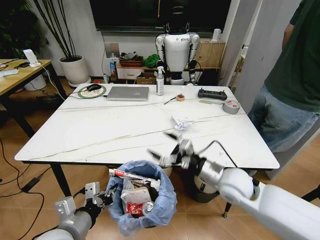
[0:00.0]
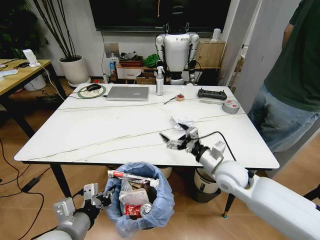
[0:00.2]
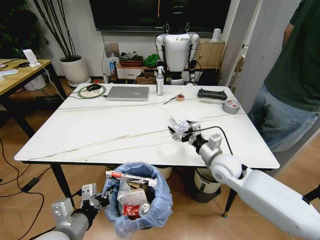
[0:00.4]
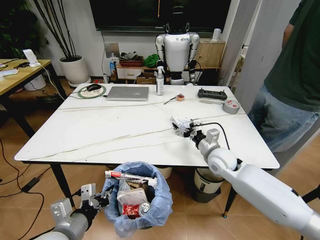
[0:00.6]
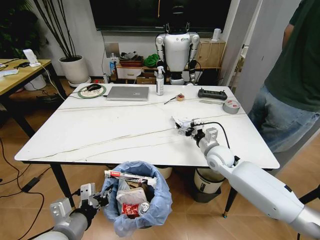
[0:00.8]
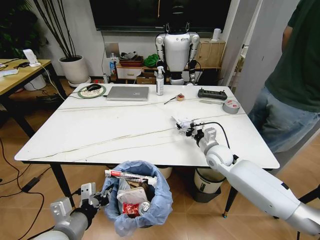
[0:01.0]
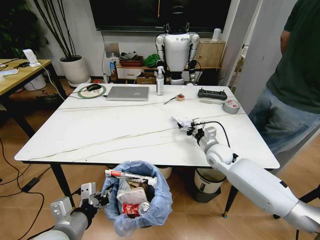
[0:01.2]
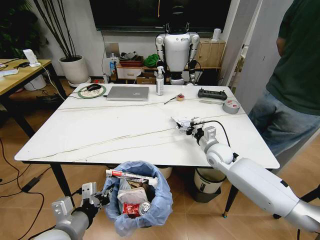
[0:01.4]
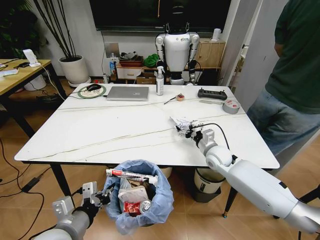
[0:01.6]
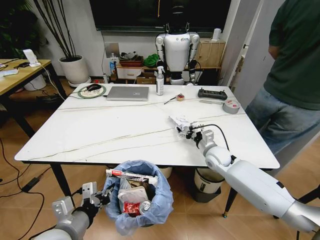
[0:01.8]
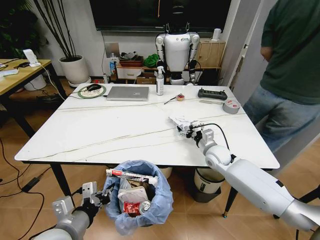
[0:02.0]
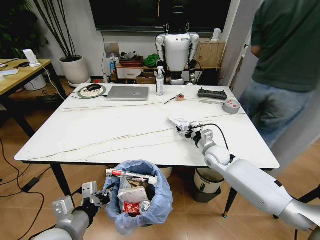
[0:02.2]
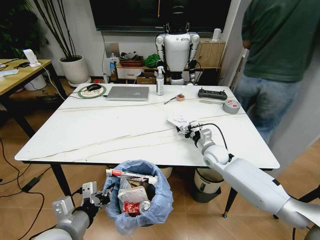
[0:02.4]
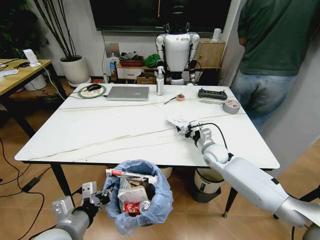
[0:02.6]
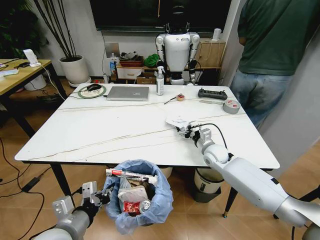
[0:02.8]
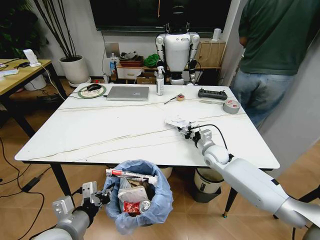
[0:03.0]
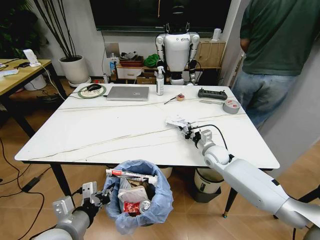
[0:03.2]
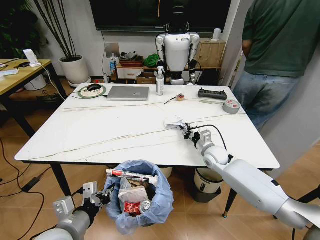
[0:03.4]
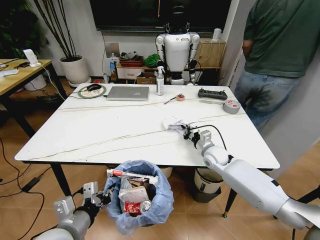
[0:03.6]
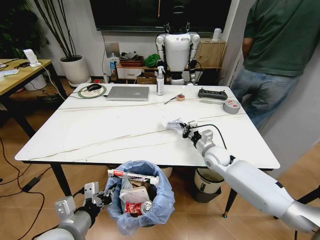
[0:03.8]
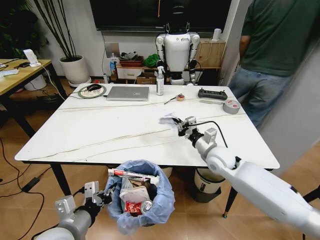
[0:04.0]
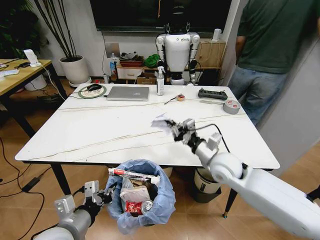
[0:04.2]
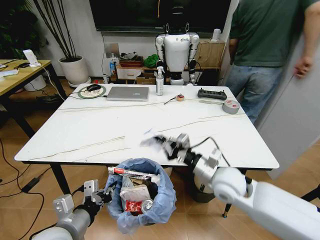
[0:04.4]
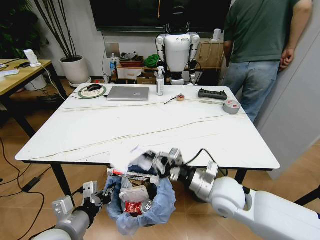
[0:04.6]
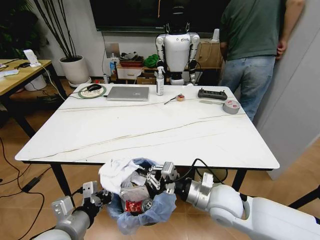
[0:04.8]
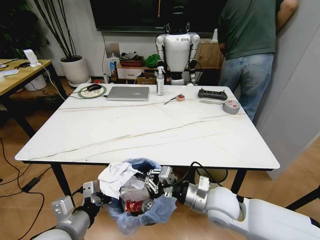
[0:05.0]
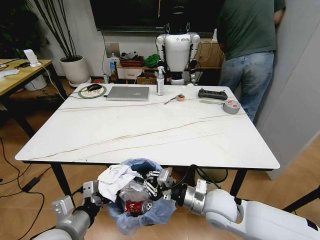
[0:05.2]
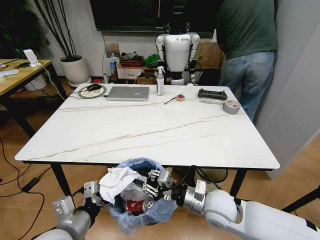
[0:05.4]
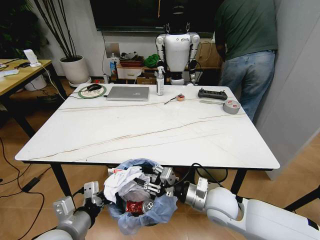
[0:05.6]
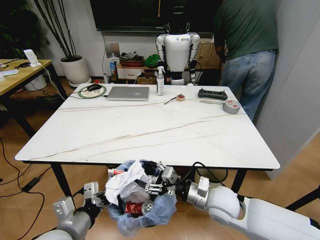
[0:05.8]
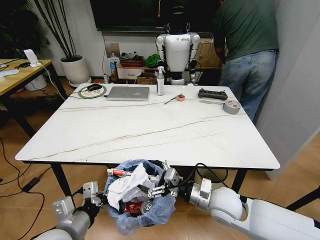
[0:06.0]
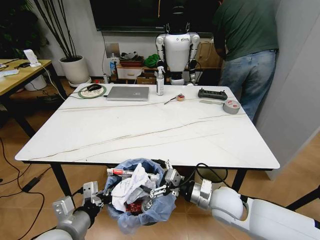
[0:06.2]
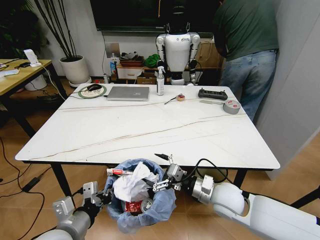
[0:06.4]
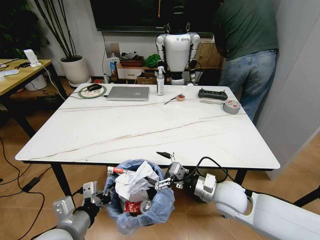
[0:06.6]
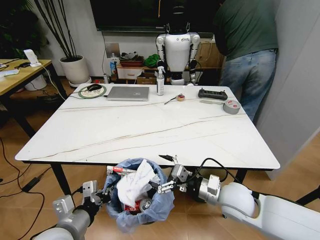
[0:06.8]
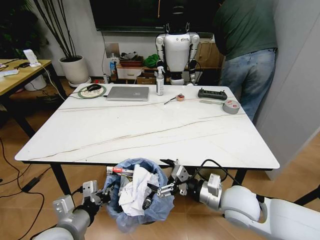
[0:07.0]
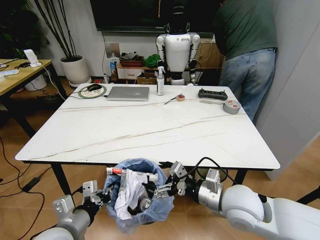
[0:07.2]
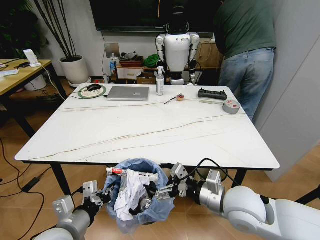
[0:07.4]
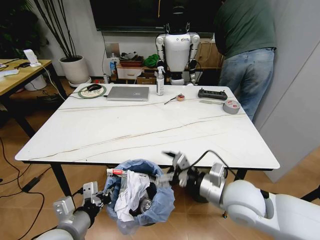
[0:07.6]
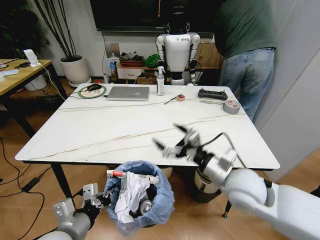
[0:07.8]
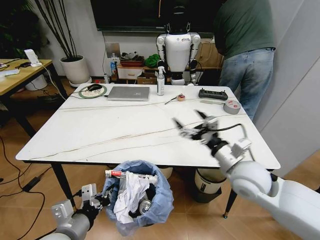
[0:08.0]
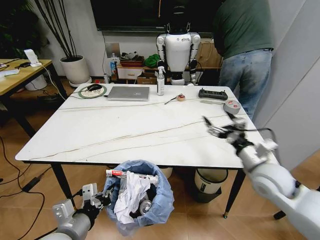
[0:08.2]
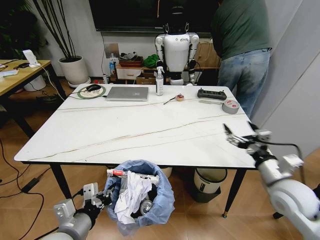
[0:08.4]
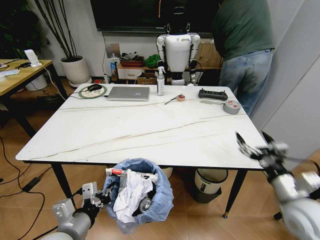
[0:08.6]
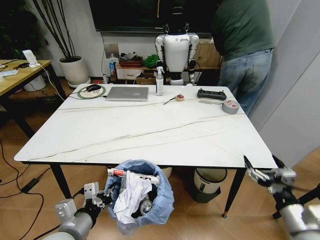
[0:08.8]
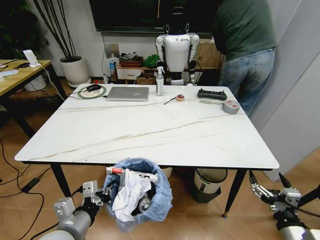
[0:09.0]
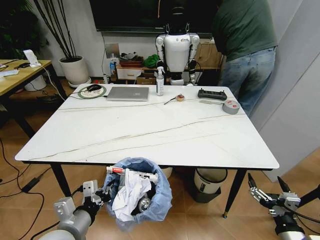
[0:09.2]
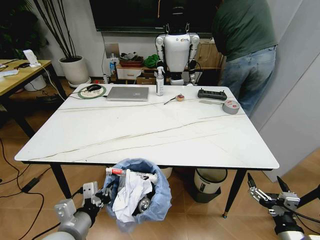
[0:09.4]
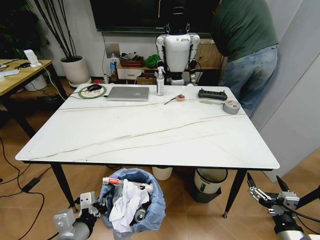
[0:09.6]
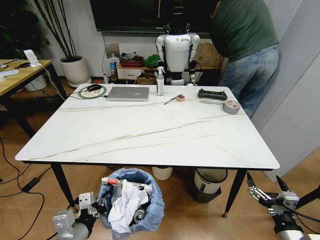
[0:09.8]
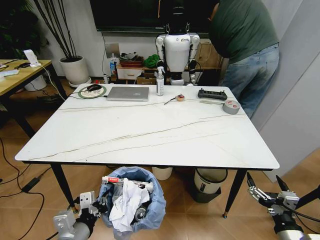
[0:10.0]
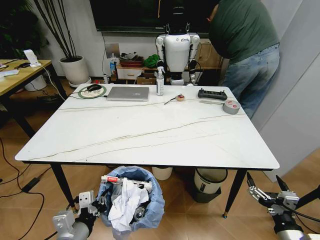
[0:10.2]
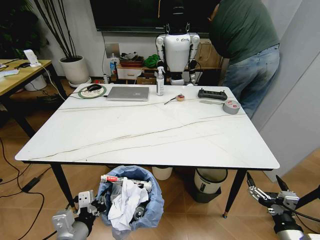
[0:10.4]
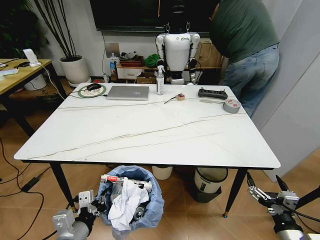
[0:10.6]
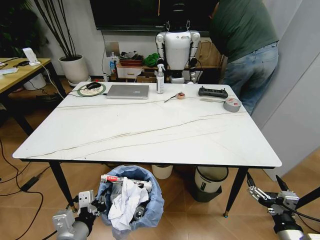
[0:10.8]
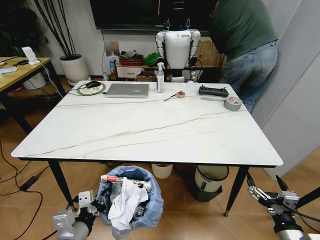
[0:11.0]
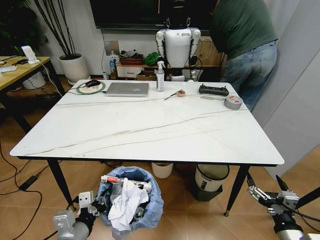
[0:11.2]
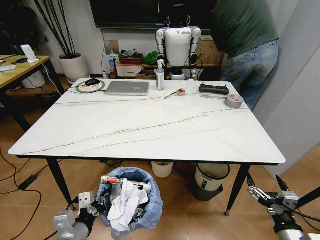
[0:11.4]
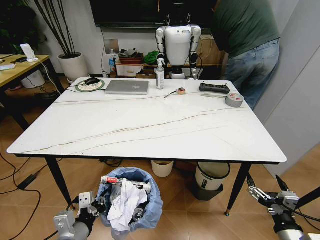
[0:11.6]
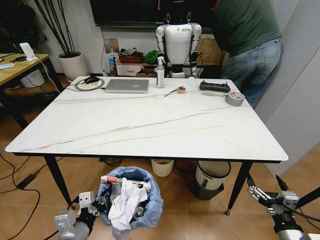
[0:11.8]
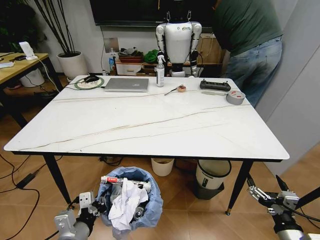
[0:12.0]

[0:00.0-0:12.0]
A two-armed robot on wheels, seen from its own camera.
Task of the whole recording: Pick up the trash bin and place the trash from the table into it.
0:00.0 to 0:01.6: The right gripper is displaced forward and downward by approximately 15 cm.
0:01.6 to 0:03.0: The grippers stay close to where they were, moving slightly.
0:03.0 to 0:04.4: The right gripper heads backward and upward, covering approximately 20 cm, and closes its fingers.
0:04.4 to 0:06.0: The right gripper shifts approximately 5 cm downward, and opens its fingers.
0:06.0 to 0:07.6: The right gripper shifts some 10 cm upward.
0:07.6 to 0:09.0: The right gripper shifts approximately 25 cm to the right, backward and downward.
0:09.0 to 0:10.4: The grippers make only small movements.

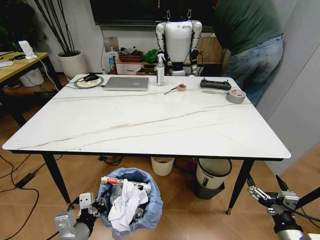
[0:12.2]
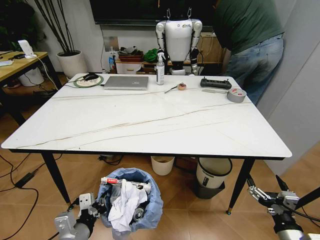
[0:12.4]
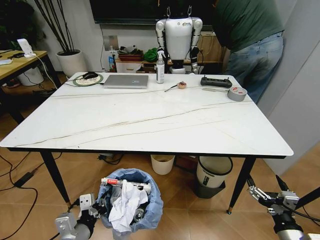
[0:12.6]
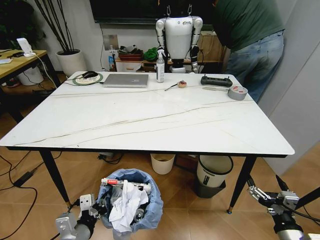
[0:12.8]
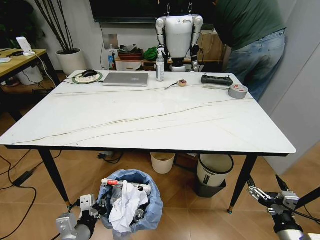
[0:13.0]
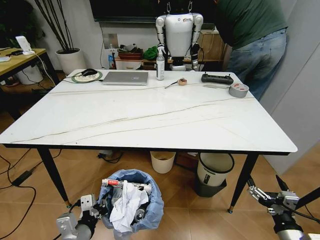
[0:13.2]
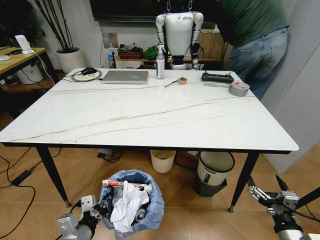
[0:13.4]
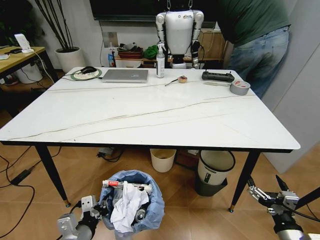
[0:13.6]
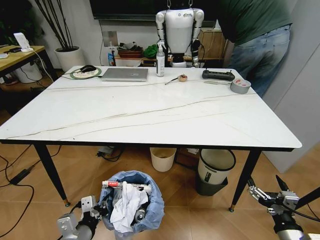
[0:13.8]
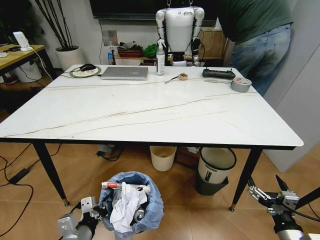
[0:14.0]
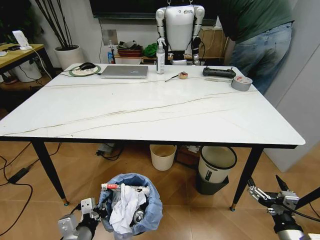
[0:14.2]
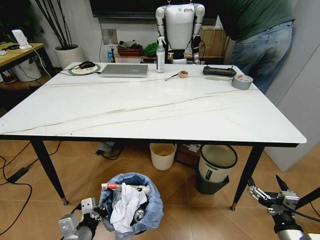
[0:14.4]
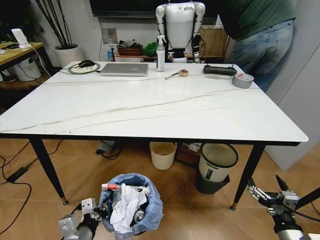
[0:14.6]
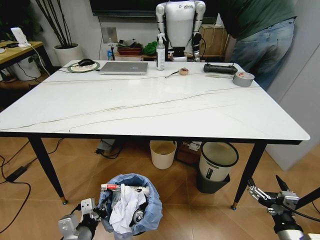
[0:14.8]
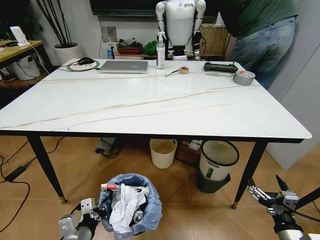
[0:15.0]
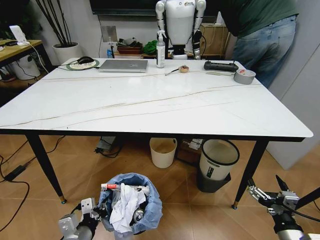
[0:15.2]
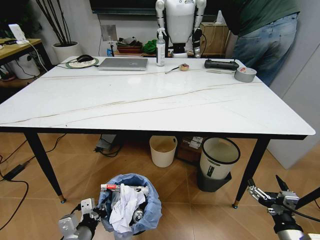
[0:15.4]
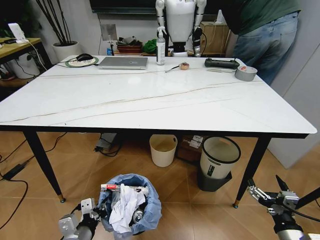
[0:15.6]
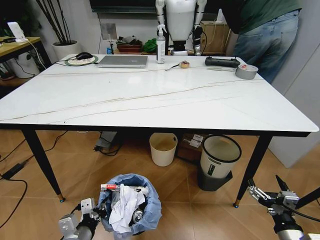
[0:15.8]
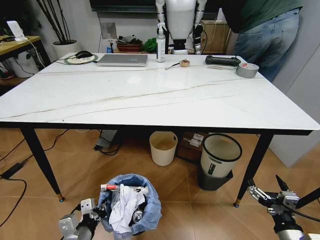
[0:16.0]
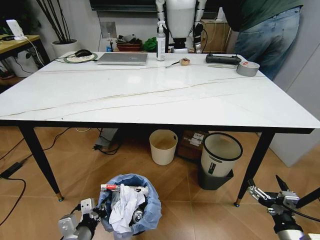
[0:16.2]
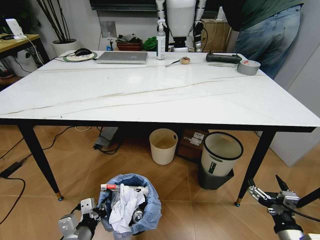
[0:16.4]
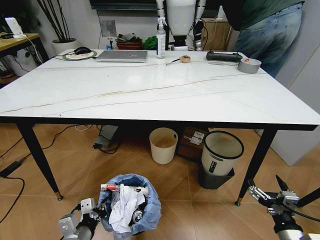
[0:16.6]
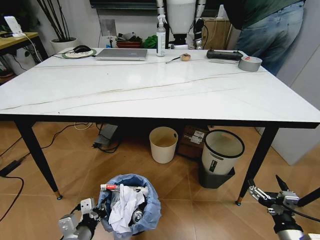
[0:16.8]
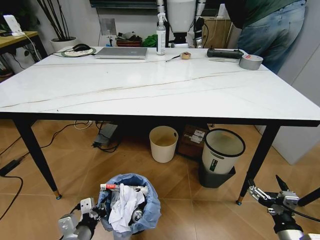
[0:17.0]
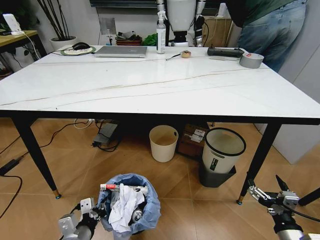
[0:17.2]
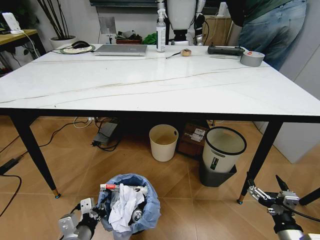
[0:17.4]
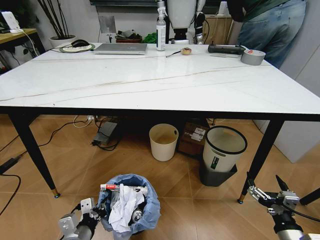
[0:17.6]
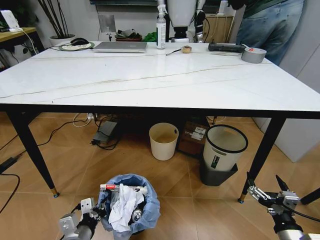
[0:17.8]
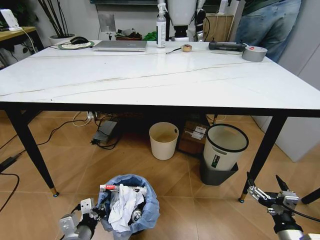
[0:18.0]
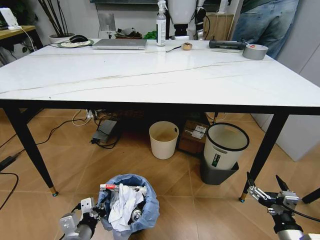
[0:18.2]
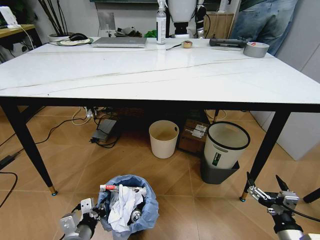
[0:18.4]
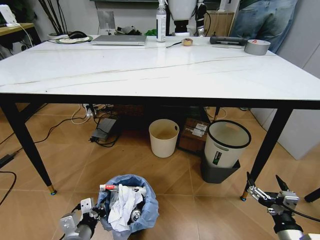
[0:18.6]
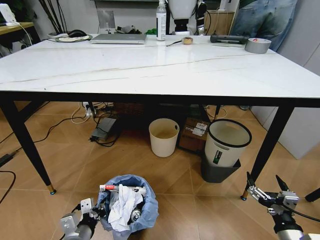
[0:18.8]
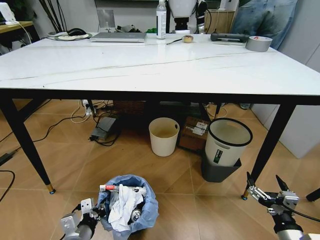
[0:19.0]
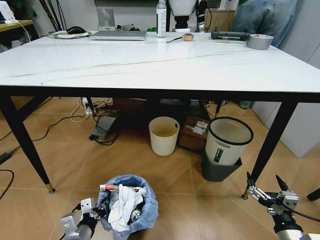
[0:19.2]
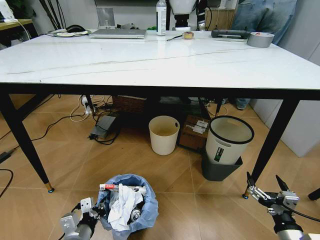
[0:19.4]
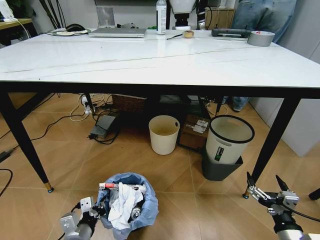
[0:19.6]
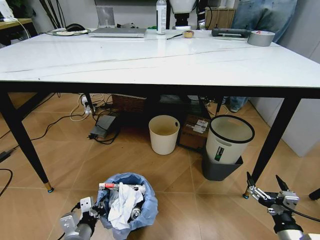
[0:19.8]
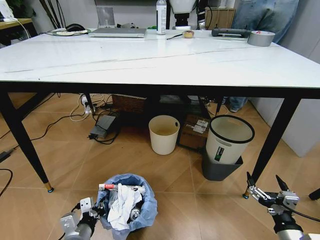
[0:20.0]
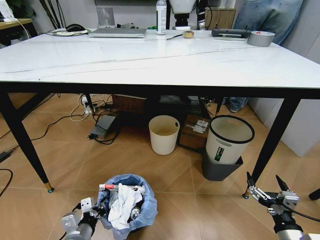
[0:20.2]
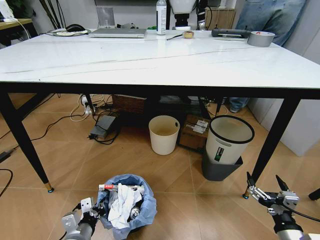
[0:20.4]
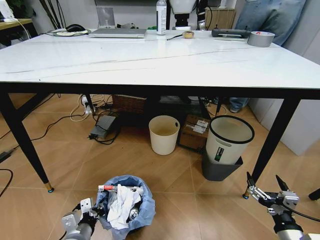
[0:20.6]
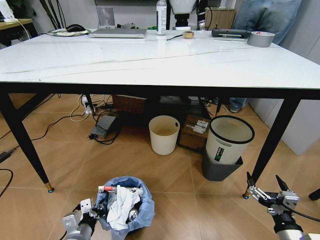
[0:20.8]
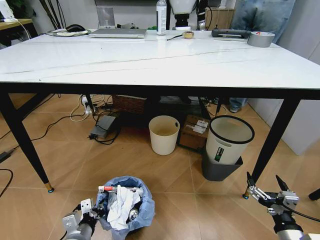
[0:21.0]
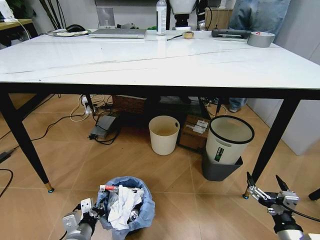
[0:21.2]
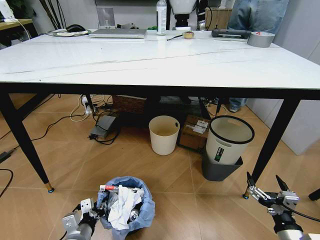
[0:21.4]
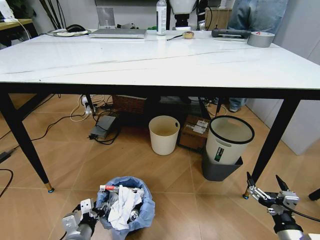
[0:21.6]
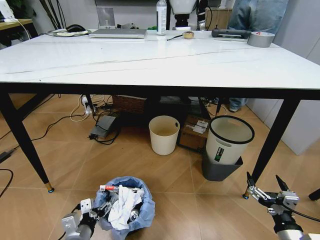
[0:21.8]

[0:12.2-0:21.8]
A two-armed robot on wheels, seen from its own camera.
Task of the whole recording: Pick up the trash bin and place the trash from the table into it.
0:20.2 to 0:21.8: The left gripper opens up.

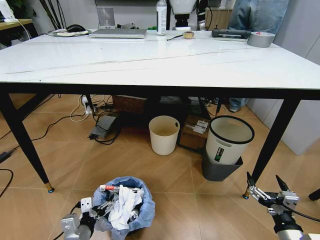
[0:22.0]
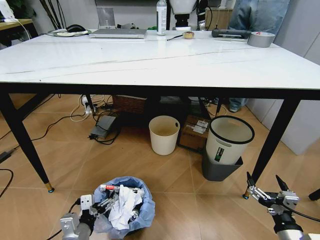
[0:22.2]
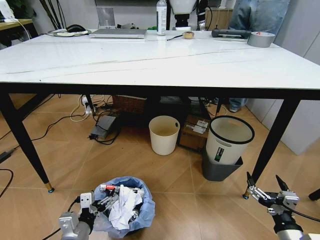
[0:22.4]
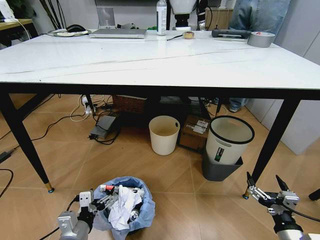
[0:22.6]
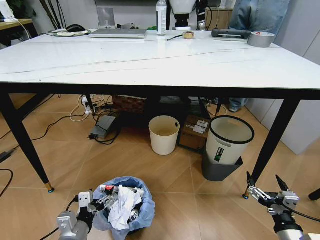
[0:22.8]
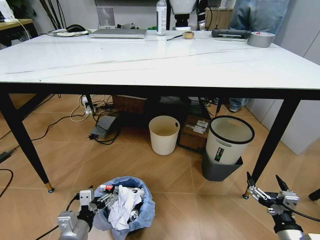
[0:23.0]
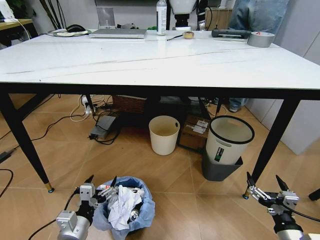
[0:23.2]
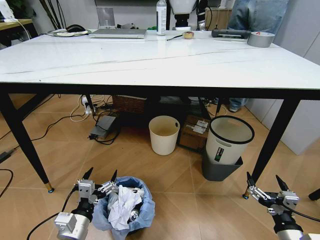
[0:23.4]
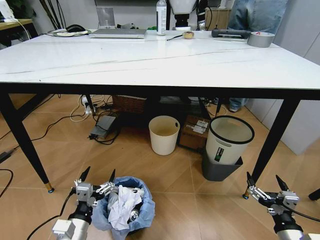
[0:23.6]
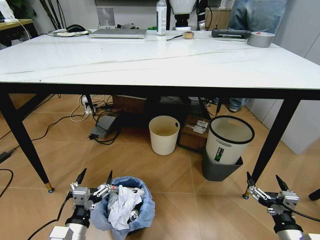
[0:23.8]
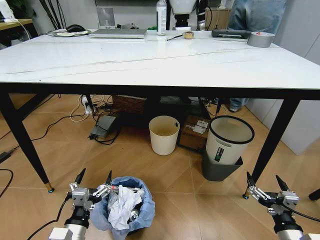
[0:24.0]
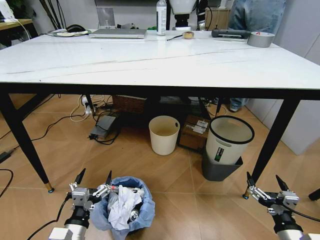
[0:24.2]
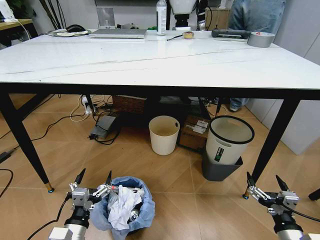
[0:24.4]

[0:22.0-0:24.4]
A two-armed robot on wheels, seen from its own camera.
Task of the whole recording: Pick up the trash bin and place the trash from the table into it.
0:23.2 to 0:24.4: There are only small adjustments of the grippers.
